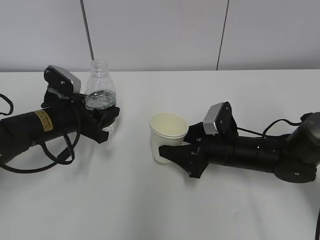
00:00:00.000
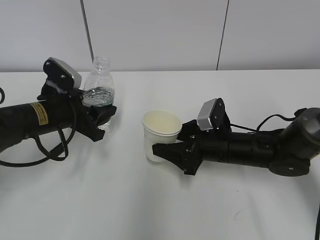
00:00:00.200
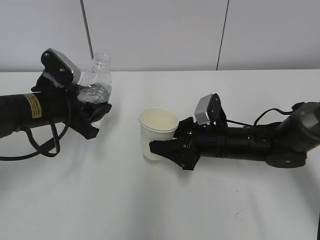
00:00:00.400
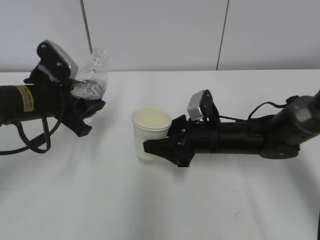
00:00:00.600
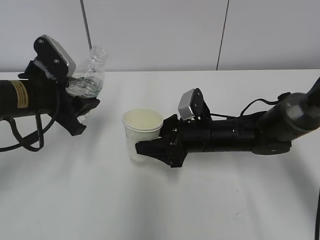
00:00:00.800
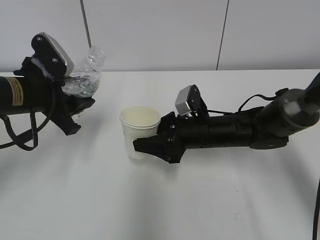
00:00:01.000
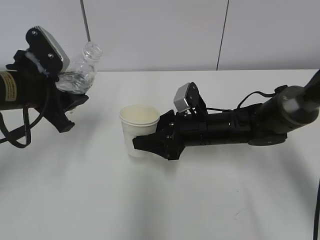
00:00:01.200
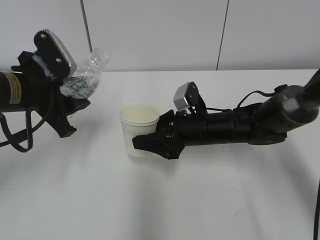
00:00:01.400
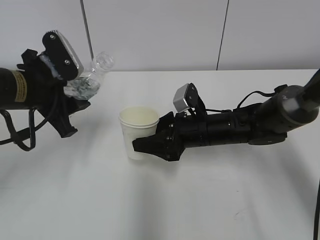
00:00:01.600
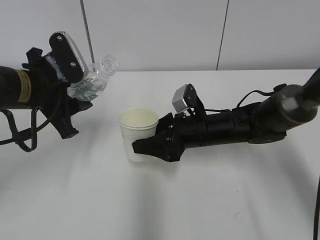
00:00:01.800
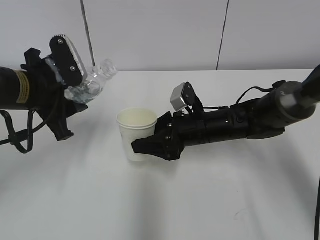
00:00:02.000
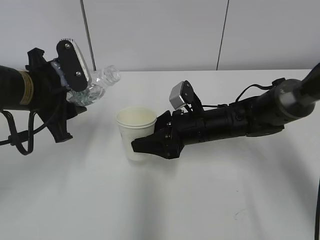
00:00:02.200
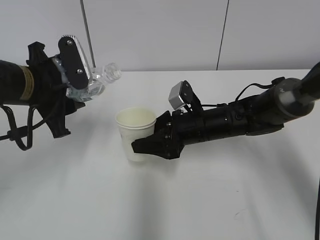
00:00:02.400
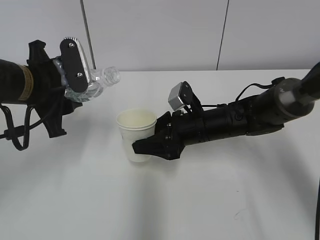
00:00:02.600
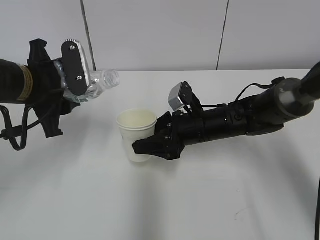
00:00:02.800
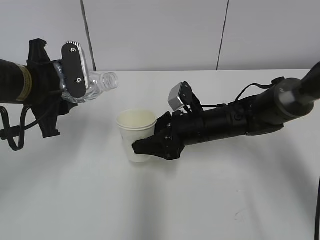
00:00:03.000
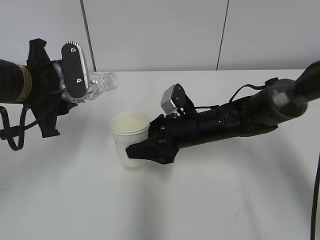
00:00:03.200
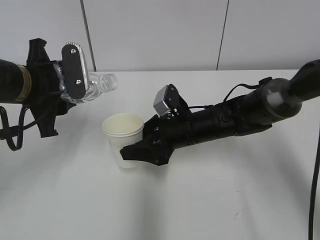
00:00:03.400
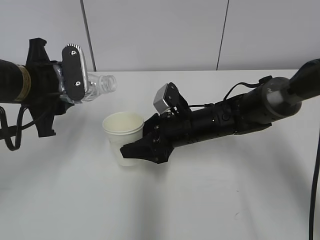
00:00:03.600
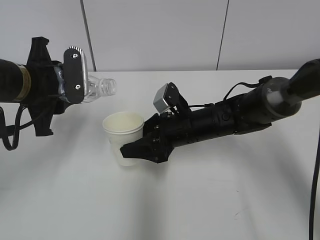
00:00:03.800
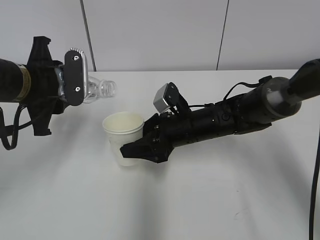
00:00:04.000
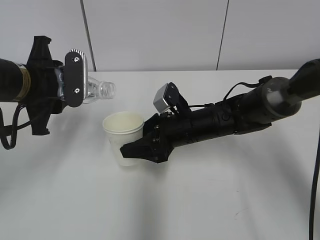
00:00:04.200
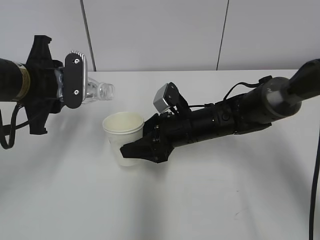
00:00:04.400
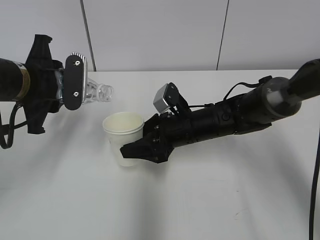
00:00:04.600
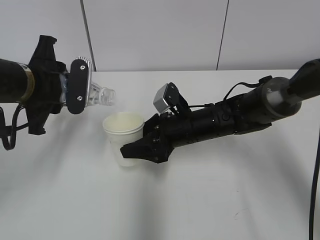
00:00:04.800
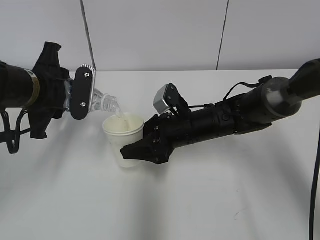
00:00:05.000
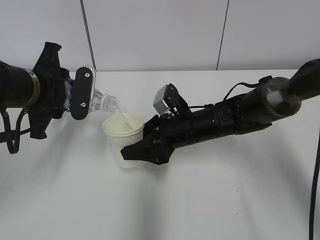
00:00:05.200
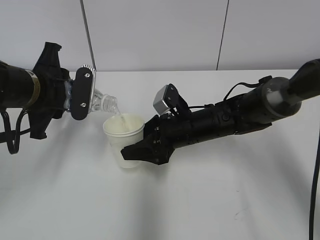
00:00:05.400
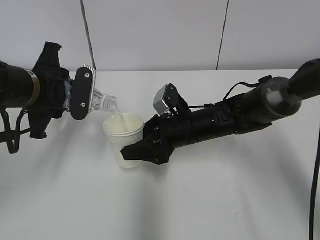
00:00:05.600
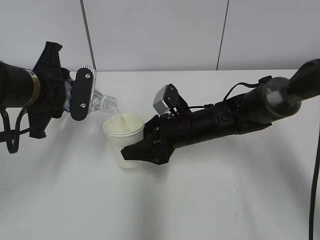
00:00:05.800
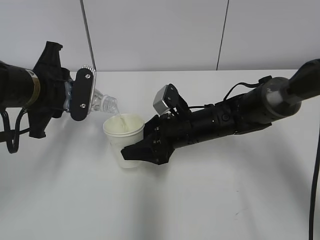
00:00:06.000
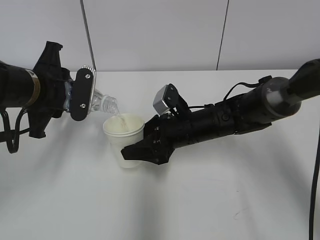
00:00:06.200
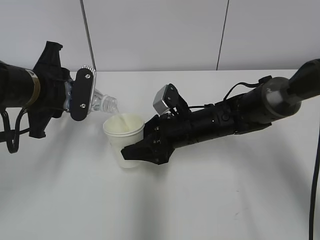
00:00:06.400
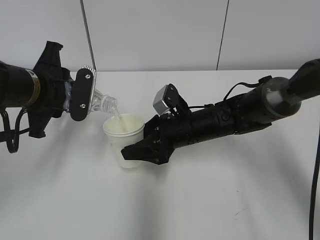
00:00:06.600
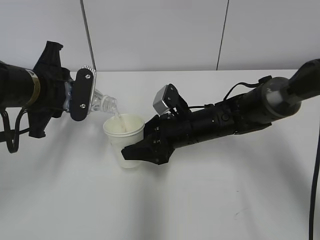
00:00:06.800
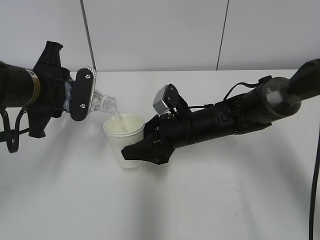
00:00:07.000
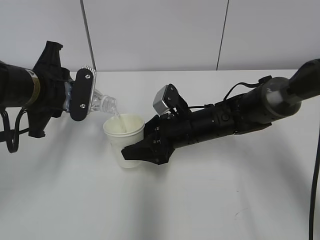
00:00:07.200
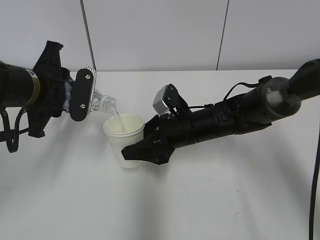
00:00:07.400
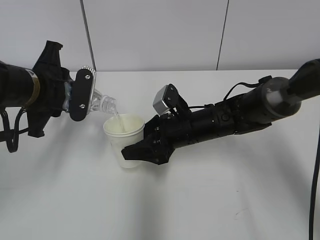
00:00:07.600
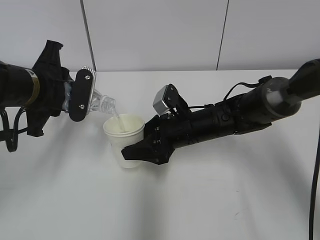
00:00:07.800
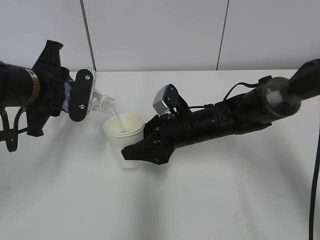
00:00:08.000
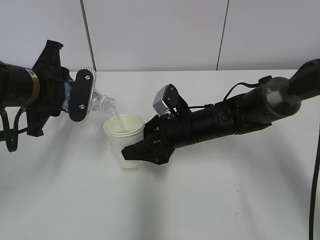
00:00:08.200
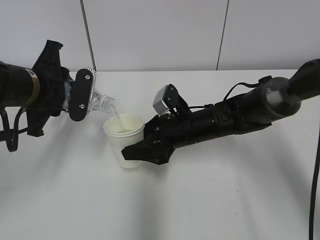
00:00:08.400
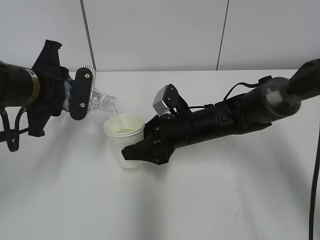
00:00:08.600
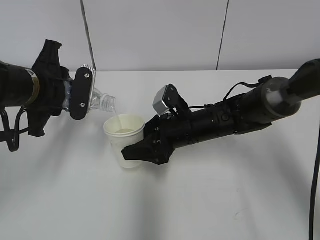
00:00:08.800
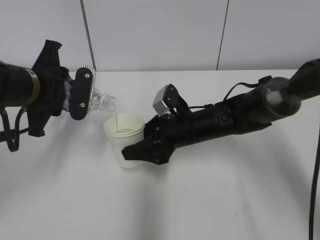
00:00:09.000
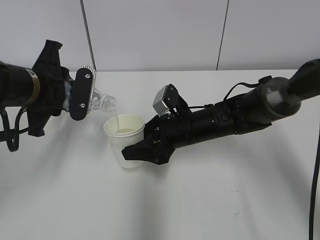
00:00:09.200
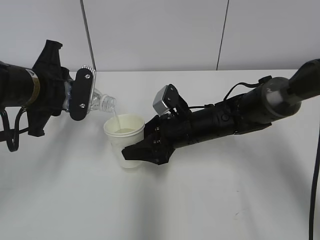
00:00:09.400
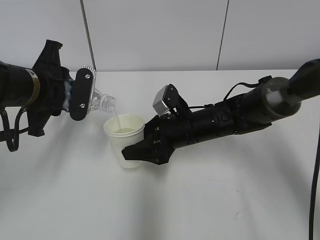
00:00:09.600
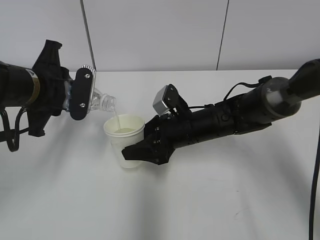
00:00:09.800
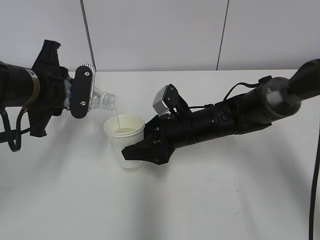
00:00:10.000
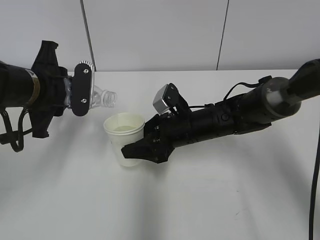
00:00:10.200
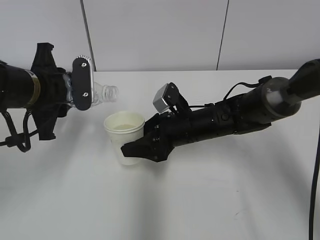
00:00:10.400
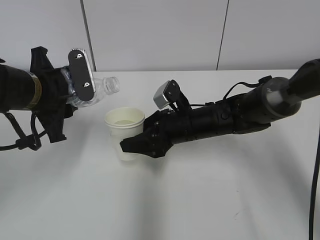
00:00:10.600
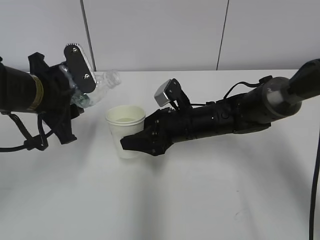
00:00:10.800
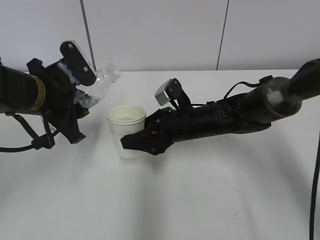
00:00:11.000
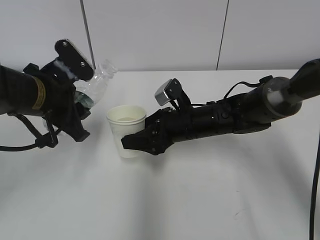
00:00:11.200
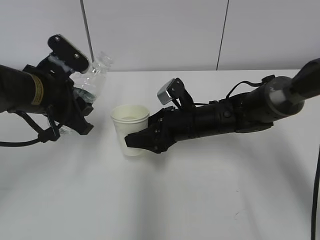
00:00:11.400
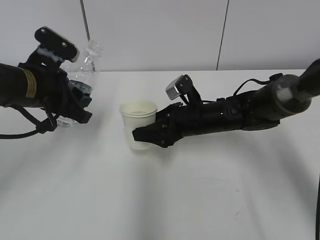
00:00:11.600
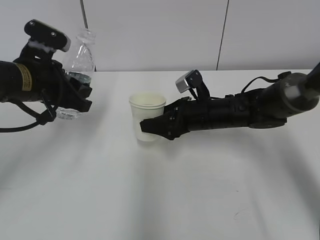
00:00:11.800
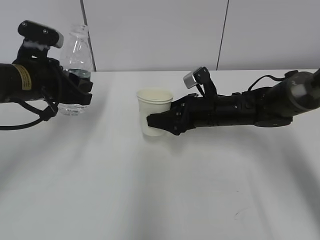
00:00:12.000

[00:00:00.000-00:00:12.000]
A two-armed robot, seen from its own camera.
Step, 00:00:02.000 to 00:00:06.400: Fill water with the right hand.
Step, 00:00:02.000 to 00:00:06.400: Pour water with the left hand.
00:00:00.000 to 00:00:01.600: The right gripper moves approximately 5 cm. The left gripper is displaced upward by roughly 10 cm.
00:00:03.000 to 00:00:04.400: There are only small adjustments of the grippers.
00:00:04.400 to 00:00:06.000: The grippers move only a little.
00:00:06.000 to 00:00:09.000: Both grippers stay put.
00:00:09.000 to 00:00:10.400: The grippers move only a little.
00:00:10.400 to 00:00:12.000: The right gripper heads to the right, covering about 5 cm.

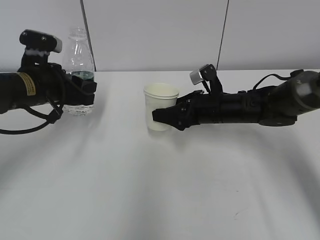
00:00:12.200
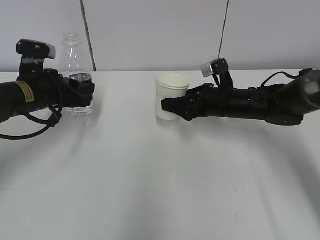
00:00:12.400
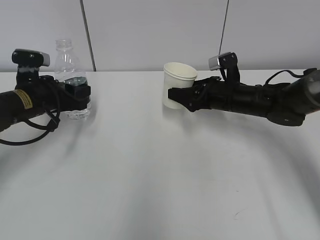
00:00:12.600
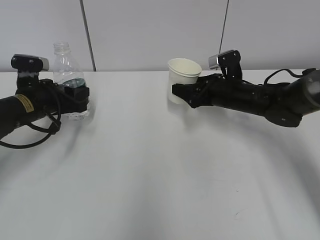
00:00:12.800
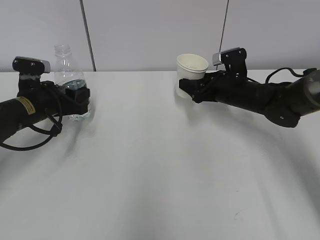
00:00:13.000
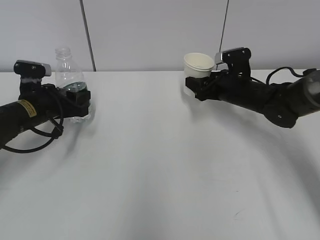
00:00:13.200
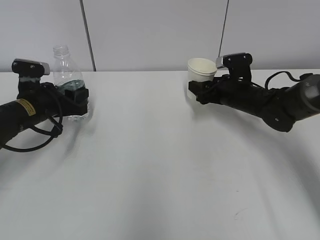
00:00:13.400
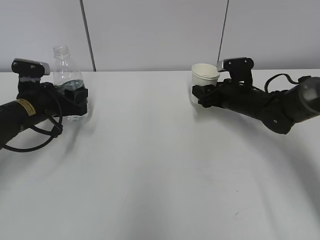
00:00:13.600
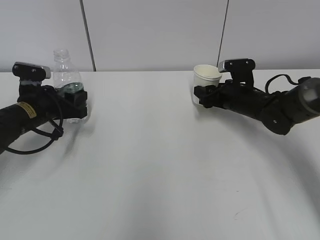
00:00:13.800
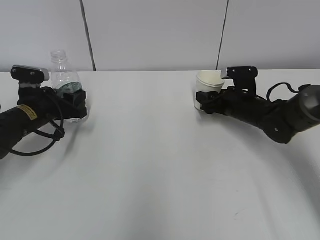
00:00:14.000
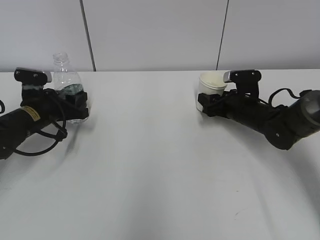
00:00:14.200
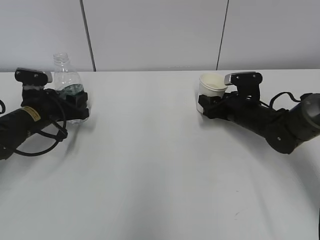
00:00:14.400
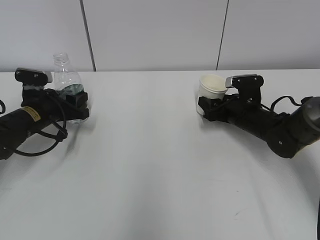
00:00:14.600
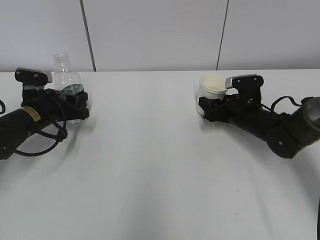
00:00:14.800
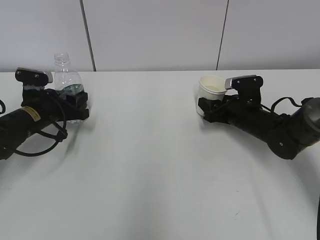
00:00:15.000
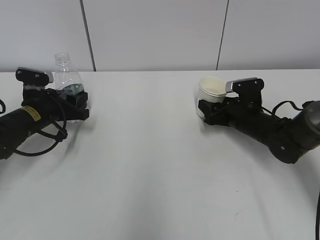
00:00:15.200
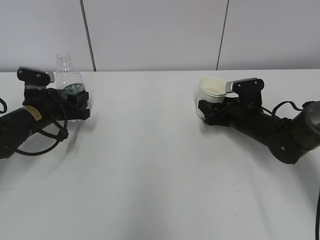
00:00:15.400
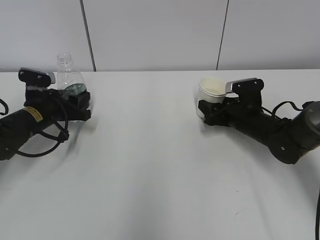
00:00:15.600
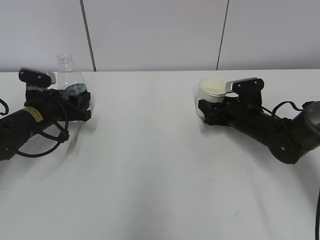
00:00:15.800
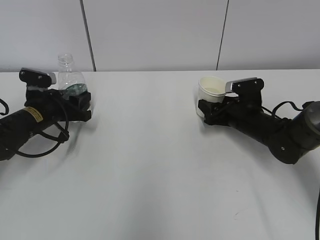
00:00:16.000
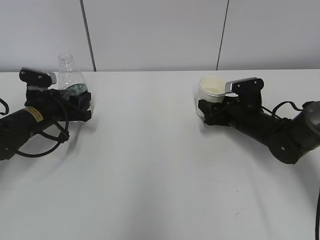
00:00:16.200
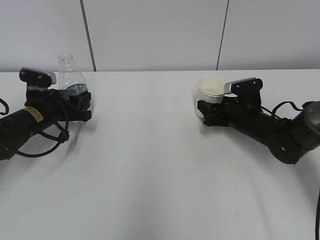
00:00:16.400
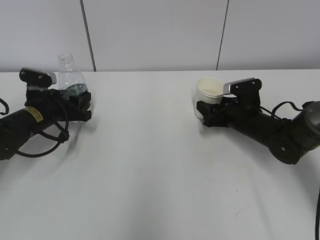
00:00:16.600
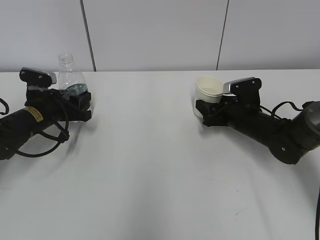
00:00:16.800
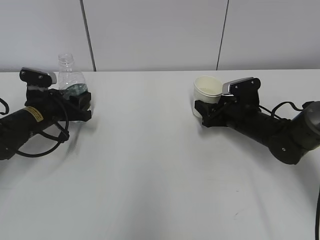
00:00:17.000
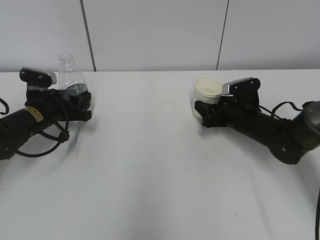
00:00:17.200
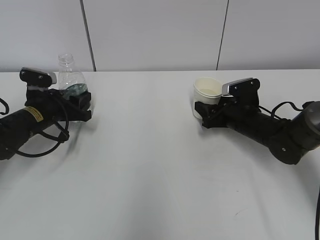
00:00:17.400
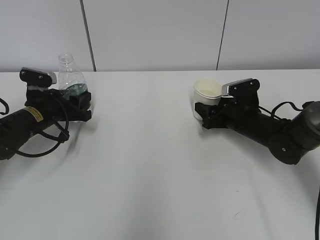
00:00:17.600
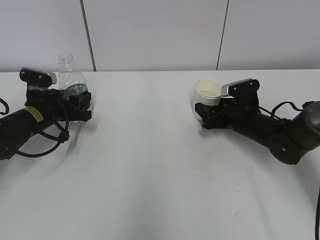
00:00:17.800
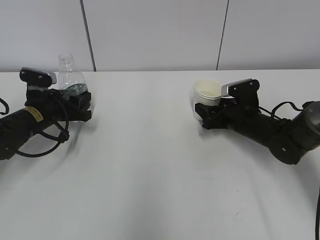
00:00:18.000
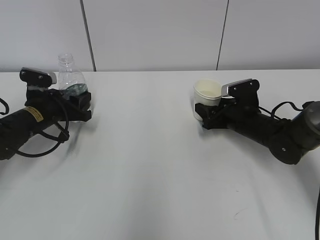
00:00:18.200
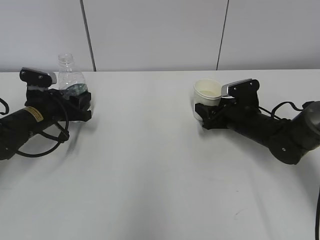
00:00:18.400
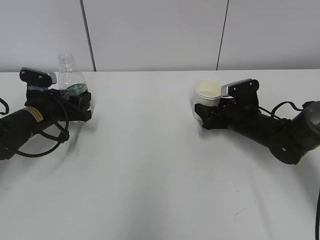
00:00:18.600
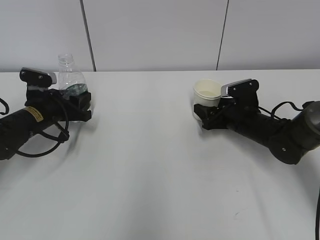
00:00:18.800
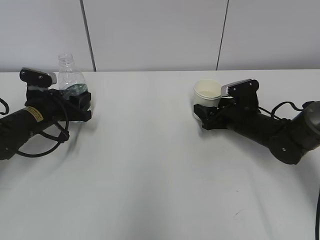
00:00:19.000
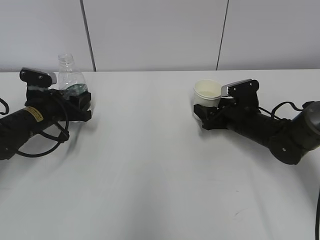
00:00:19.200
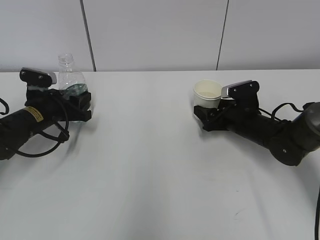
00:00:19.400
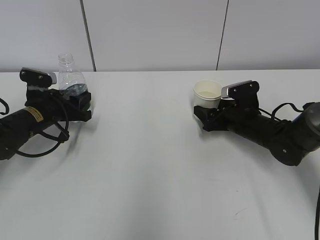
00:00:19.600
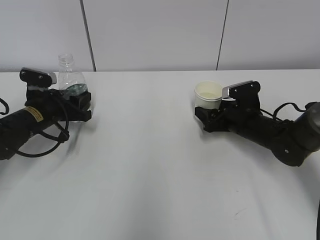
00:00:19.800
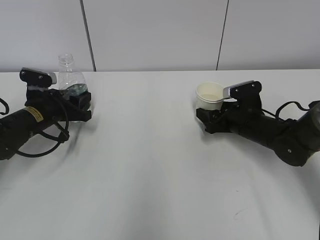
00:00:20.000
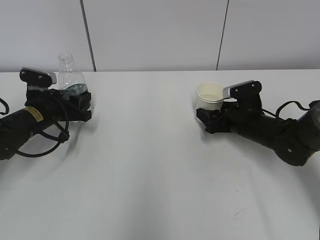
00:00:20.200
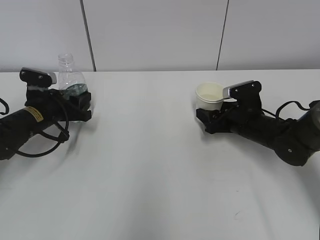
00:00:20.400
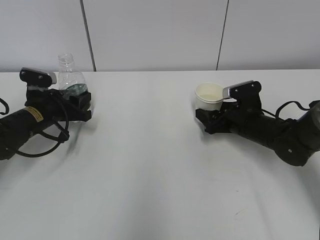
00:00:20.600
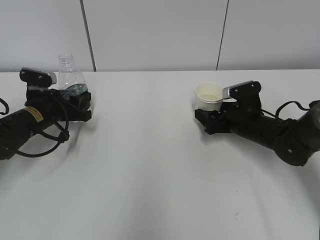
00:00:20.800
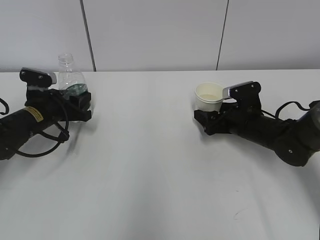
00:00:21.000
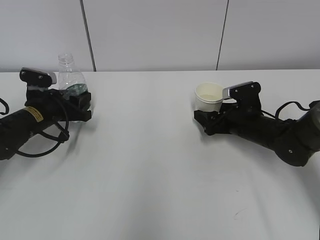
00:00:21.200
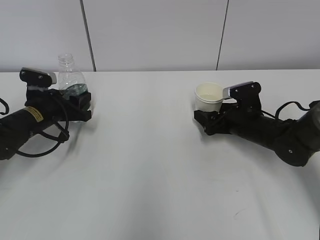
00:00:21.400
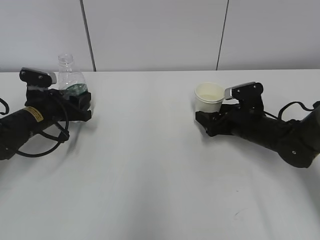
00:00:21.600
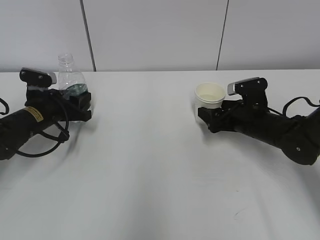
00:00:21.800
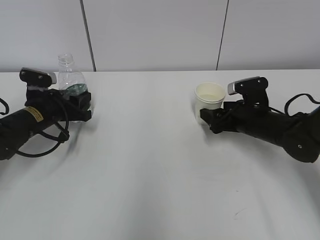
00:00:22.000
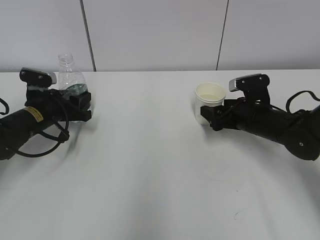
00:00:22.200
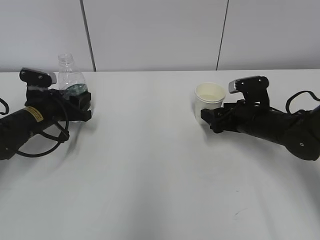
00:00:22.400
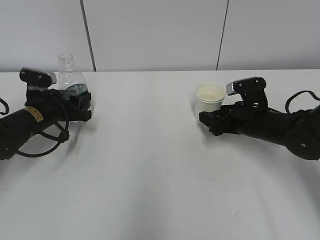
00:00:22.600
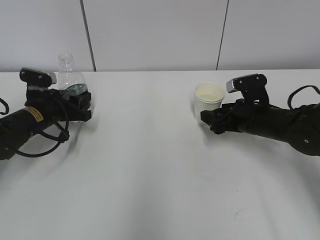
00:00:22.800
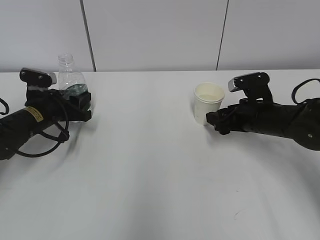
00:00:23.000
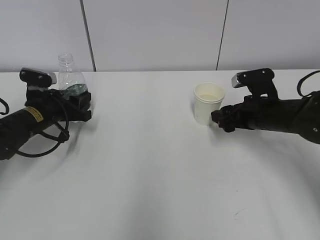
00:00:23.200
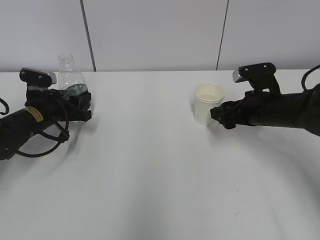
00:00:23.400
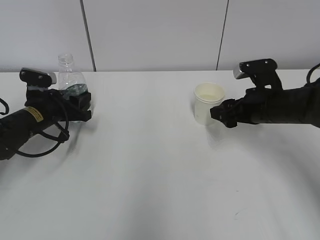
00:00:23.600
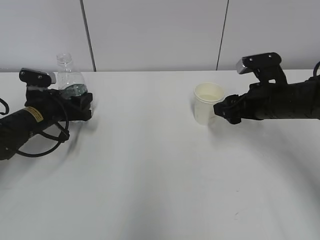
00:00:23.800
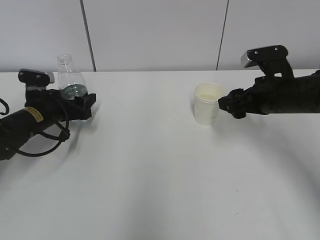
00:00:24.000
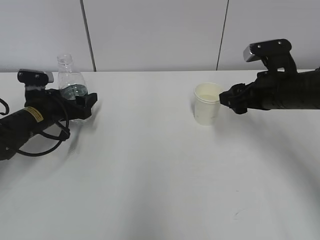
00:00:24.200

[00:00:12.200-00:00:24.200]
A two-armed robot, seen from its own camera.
Step, 00:00:12.200 to 00:00:15.400: Place the paper cup with the right hand.
00:00:12.200 to 00:00:13.800: The right gripper travels to the right by approximately 5 cm, while the left gripper is displaced downward by about 10 cm.
00:00:13.800 to 00:00:15.200: There are only small adjustments of the grippers.
00:00:15.200 to 00:00:16.600: Both grippers stay about where they are.
00:00:16.600 to 00:00:18.200: Both grippers stay put.
00:00:18.200 to 00:00:19.800: The right gripper opens.
00:00:19.800 to 00:00:21.200: The right gripper opens.
00:00:21.200 to 00:00:22.600: The right gripper closes.
00:00:22.600 to 00:00:24.200: The left gripper opens its fingers. Meanwhile the right gripper heads upward, covering about 10 cm.
